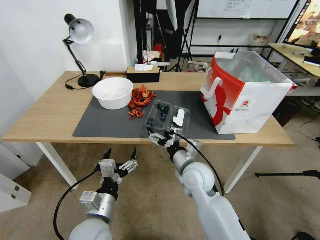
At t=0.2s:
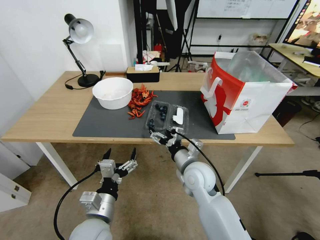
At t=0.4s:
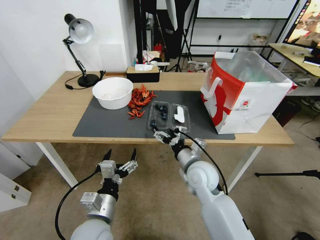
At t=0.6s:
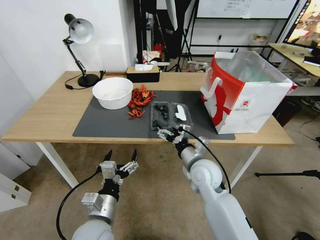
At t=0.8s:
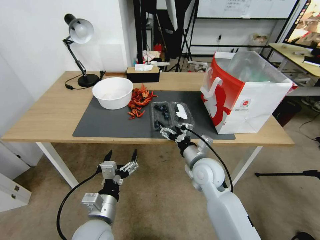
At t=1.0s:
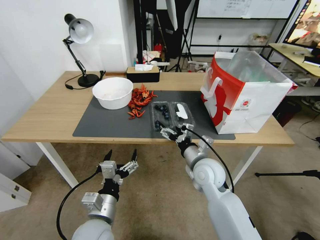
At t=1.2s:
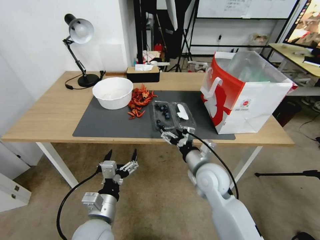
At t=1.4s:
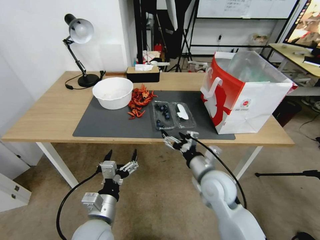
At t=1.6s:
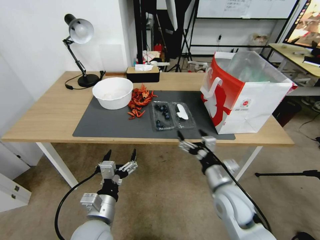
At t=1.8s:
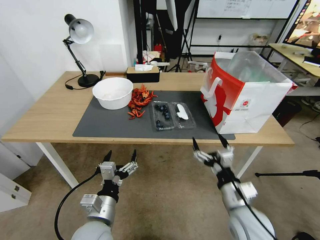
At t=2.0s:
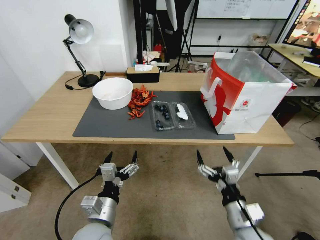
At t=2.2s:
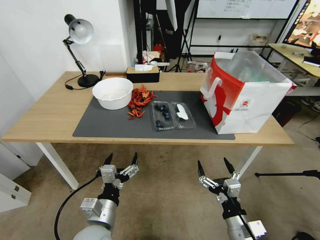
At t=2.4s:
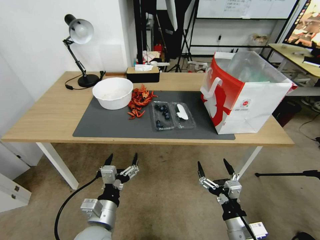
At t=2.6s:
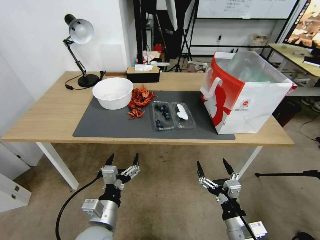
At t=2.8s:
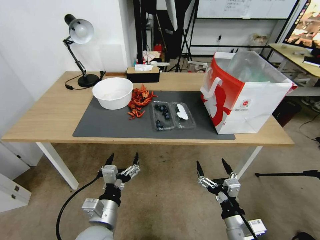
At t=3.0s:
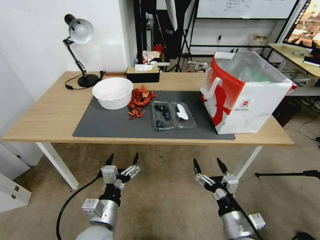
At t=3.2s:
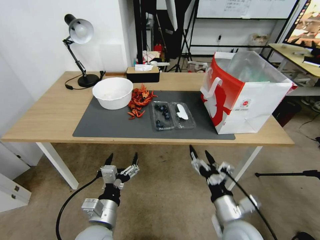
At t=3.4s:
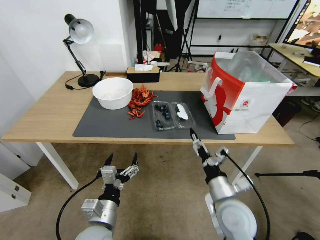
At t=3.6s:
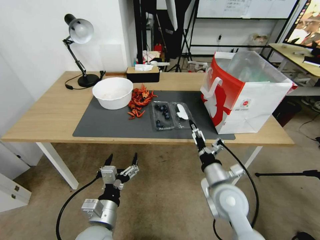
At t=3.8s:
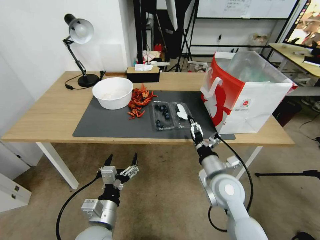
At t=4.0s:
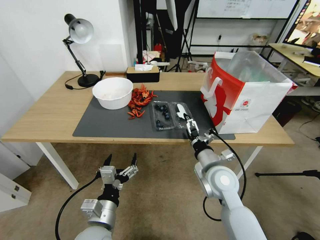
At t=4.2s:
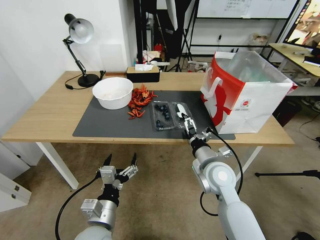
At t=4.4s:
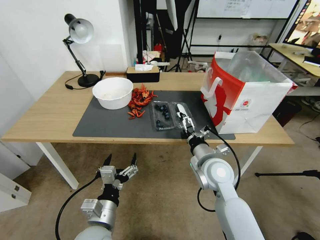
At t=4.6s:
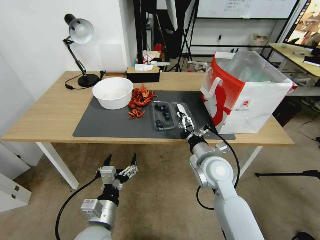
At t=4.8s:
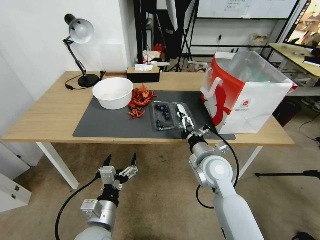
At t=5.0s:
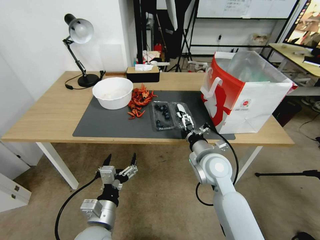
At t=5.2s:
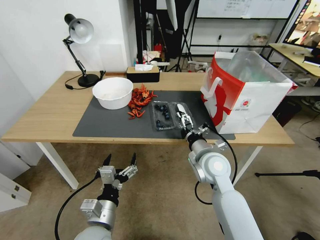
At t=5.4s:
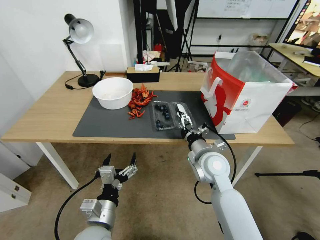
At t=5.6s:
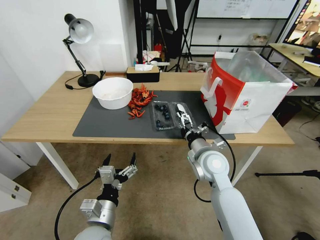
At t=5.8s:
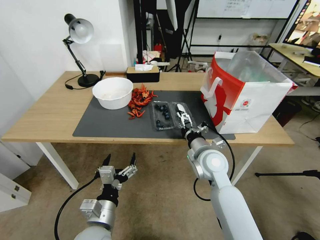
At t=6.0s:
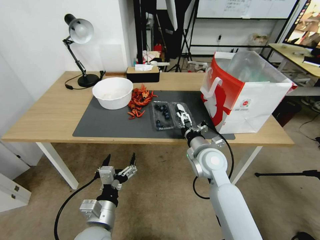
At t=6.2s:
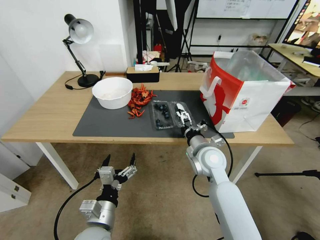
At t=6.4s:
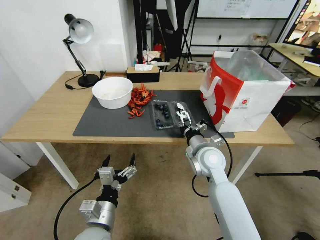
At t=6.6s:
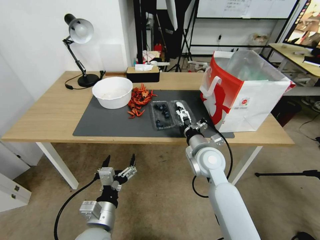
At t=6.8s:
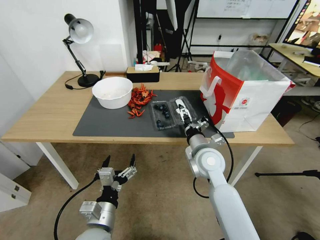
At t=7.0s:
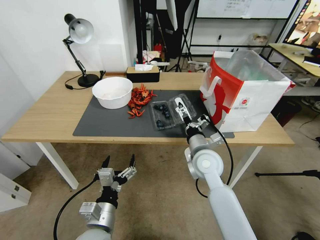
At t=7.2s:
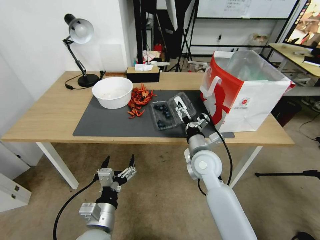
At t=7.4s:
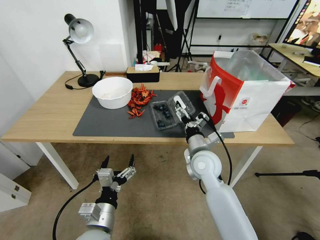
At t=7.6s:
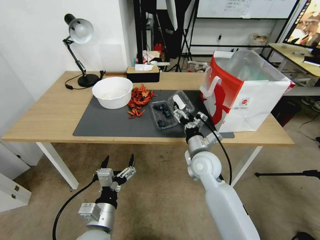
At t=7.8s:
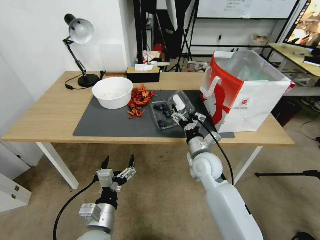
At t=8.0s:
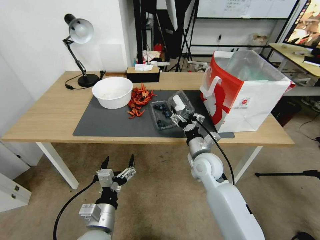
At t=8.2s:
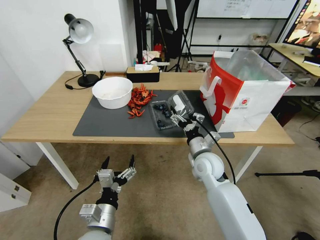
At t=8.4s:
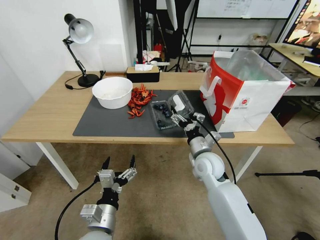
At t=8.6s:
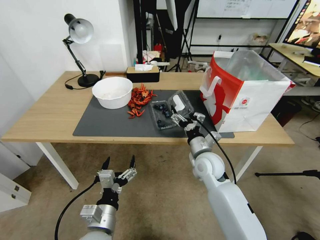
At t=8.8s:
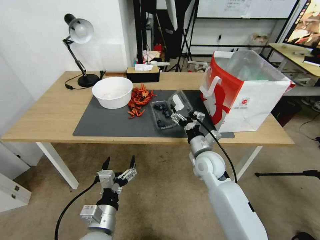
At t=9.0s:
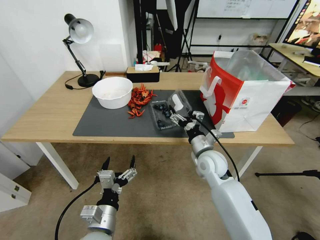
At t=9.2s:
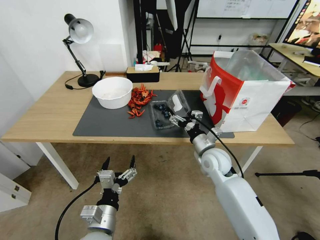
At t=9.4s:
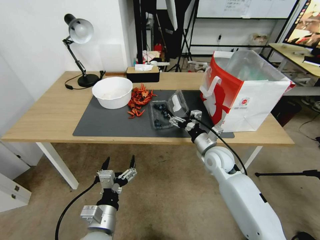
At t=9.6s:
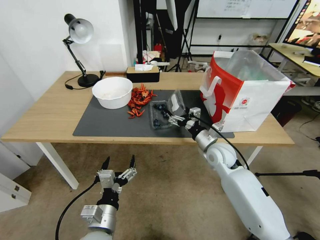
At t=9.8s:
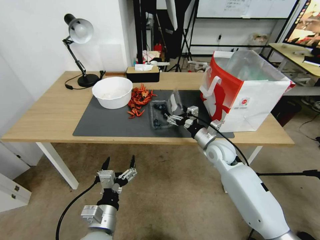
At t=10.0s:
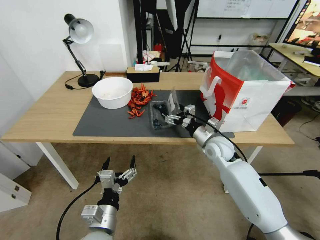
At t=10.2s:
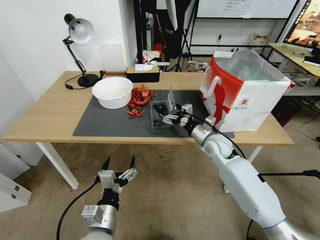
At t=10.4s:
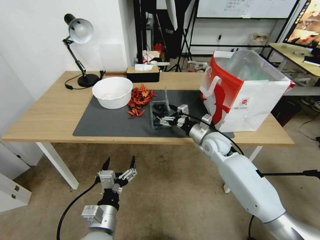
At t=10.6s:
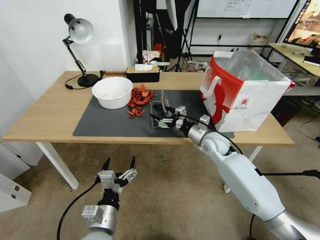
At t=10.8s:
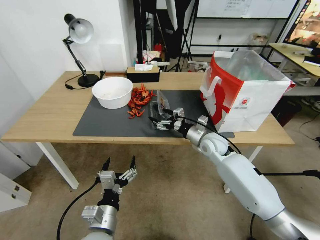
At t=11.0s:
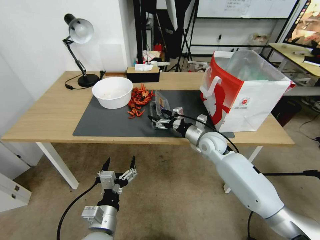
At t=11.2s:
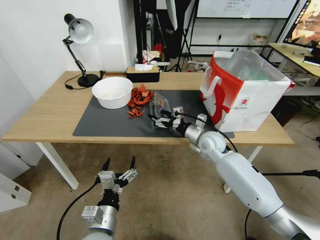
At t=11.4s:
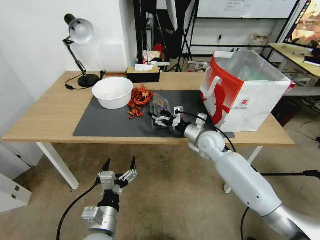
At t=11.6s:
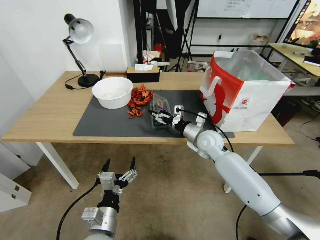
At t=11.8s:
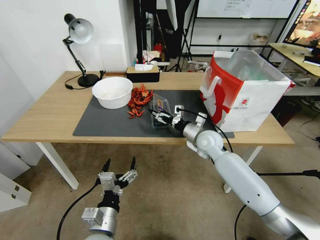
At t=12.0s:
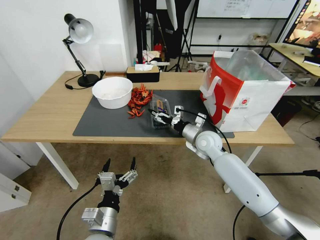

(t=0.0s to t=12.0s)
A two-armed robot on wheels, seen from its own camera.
Task of the whole recording: Close the takeout container lid, then place the container into the takeout bag.
t=0.0s - t=1.6s: The right gripper travels to the right and backward by approximately 10 cm.
t=1.6s - t=3.0s: The right gripper is displaced backward and downward by approximately 10 cm.
t=3.0s - t=4.4s: The right gripper moves forward and upward, approximately 20 cm.
t=4.4s - t=6.0s: There are only small adjustments of the grippers.
t=7.6s - t=9.0s: The grippers stay close to where they were, moving slightly.
t=9.0s - t=10.4s: The right gripper goes roughly 5 cm forward.

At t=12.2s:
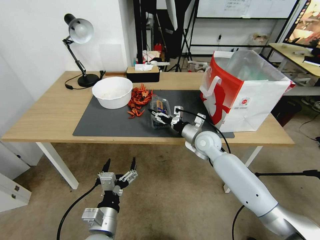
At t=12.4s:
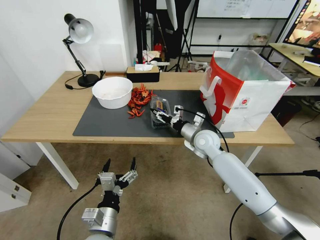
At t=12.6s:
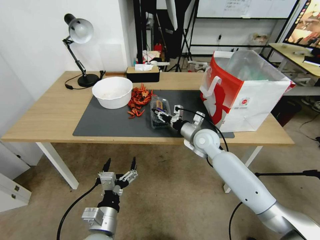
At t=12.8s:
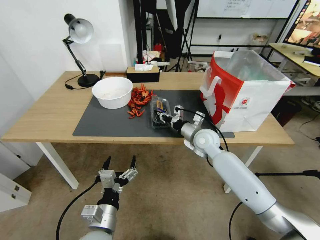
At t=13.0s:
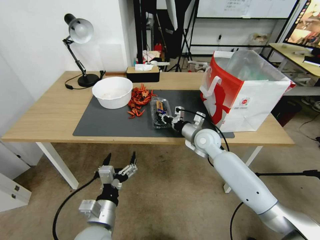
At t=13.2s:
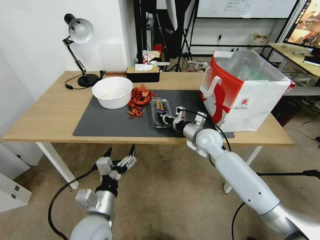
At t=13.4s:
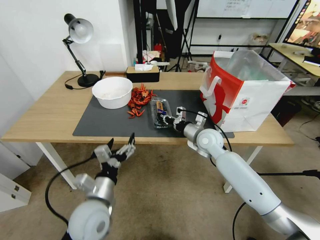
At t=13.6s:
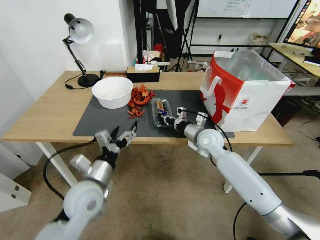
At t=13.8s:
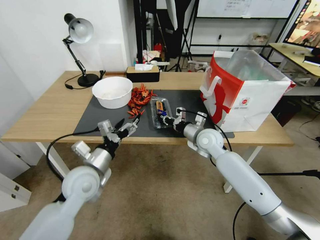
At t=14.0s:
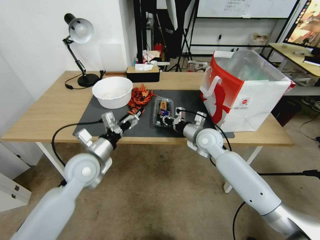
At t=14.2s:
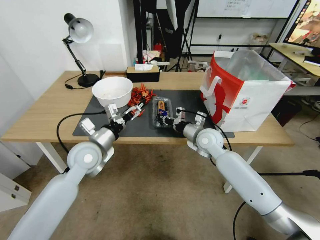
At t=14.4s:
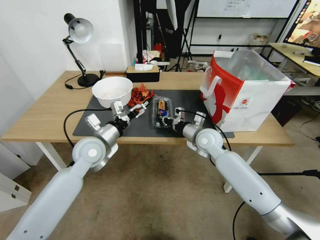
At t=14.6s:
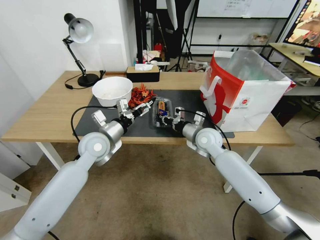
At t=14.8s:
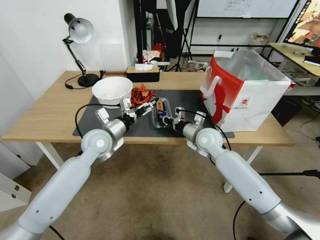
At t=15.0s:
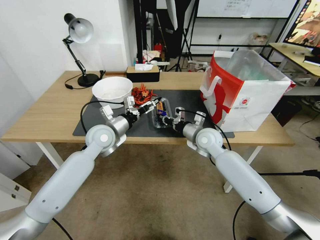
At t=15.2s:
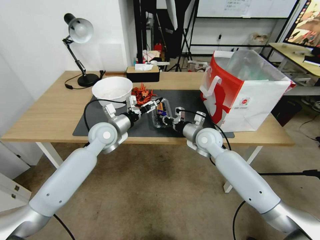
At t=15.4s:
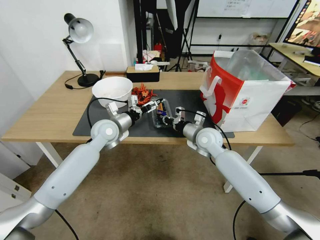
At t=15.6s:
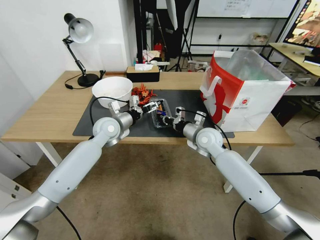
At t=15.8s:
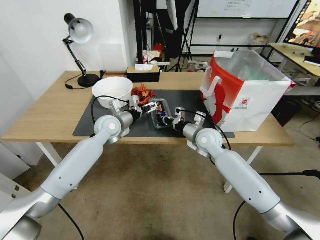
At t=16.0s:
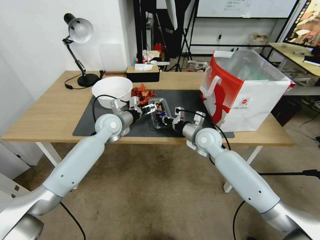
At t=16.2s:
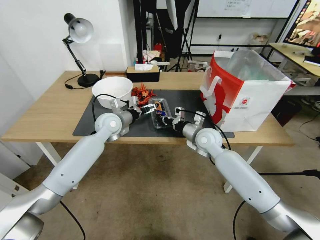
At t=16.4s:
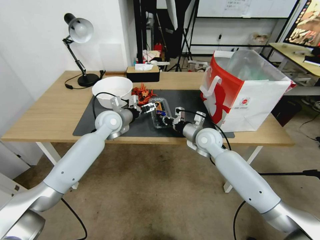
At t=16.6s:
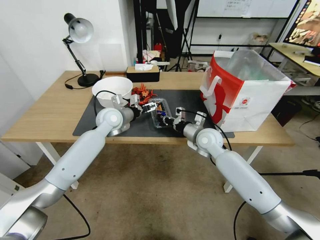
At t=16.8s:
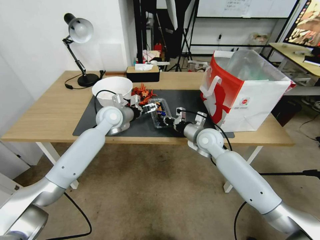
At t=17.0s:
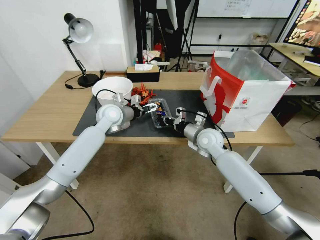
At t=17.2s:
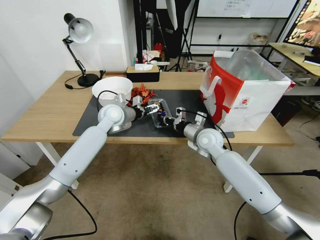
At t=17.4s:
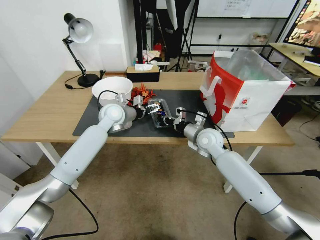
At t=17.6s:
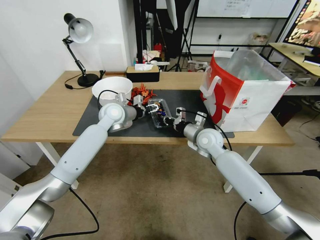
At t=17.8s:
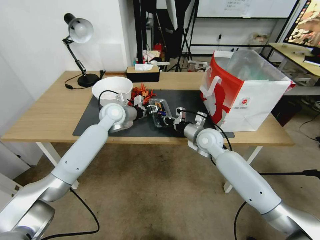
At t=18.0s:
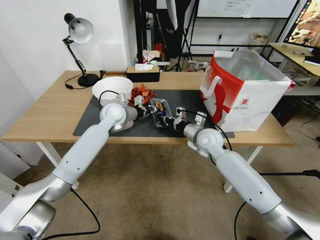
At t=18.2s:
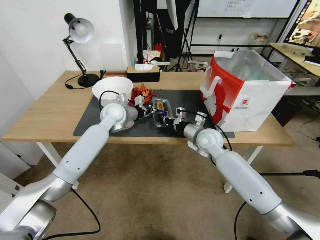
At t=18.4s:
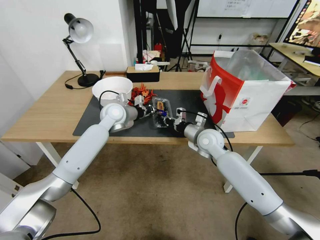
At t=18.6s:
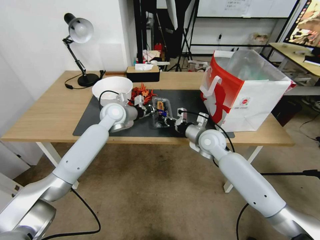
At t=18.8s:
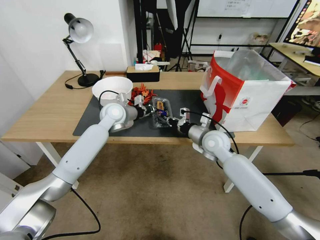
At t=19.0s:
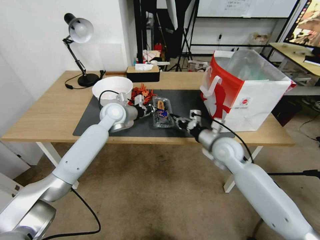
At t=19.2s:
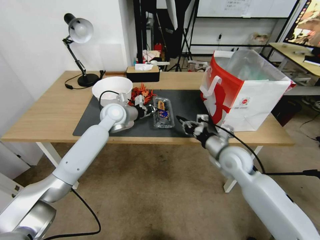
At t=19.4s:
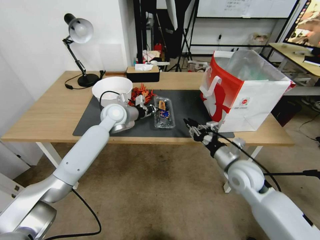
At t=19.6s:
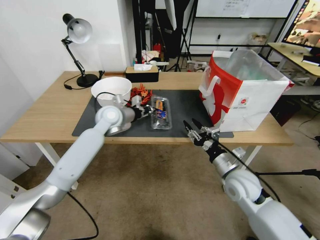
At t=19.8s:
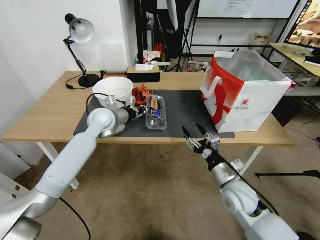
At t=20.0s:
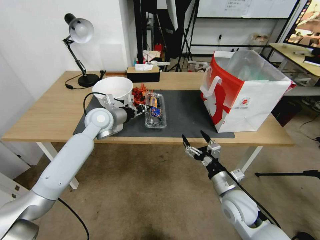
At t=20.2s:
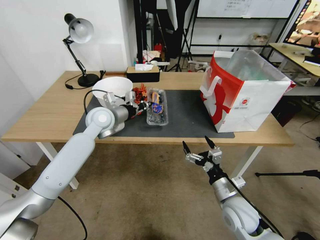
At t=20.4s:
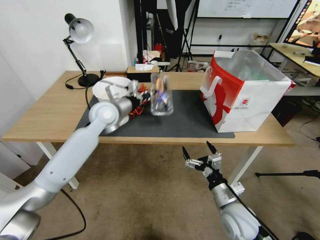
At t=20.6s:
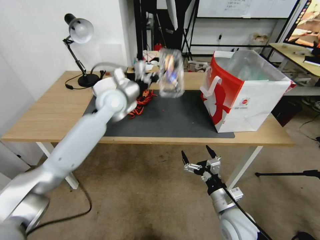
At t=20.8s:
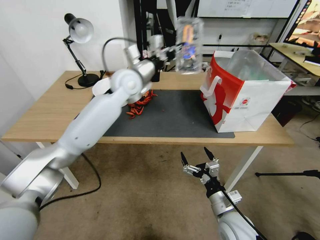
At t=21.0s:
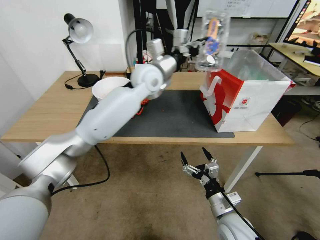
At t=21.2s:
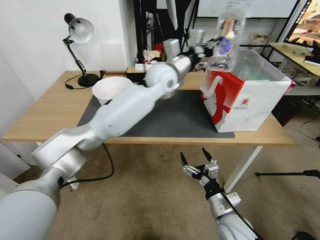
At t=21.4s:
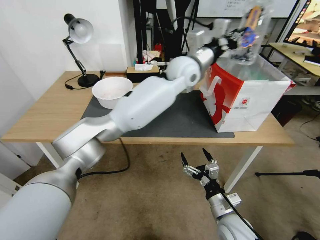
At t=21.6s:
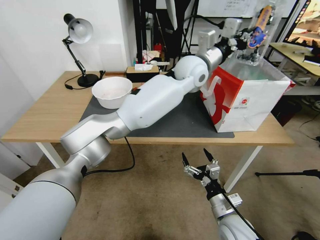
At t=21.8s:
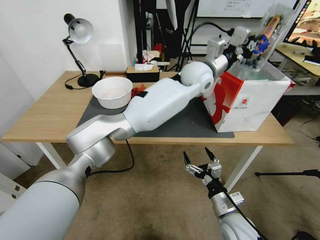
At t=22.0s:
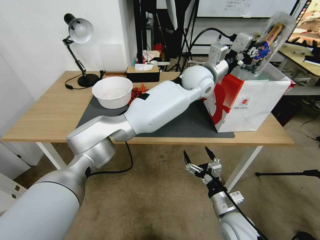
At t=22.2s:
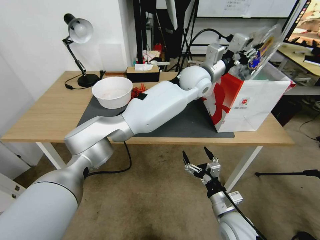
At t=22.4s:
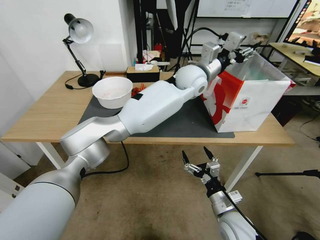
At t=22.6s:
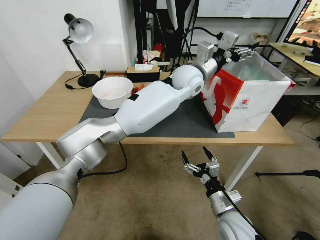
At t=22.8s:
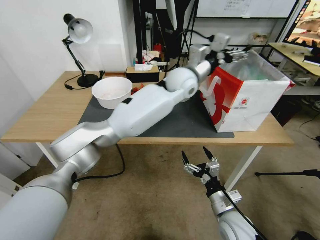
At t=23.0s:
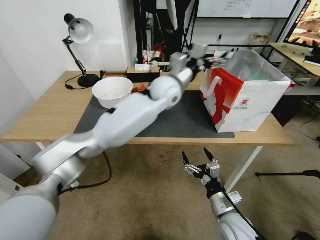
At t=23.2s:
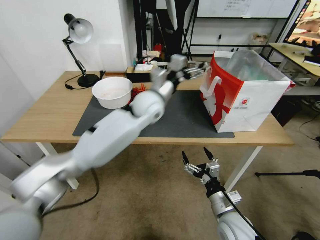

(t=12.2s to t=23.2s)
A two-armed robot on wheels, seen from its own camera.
Task of the whole recording: Close the takeout container lid, then place the container into the takeout bag.
t=12.2s - t=13.8s: The left gripper heads forward and upward, covering about 15 cm. Meanwhile the right gripper closes up.
t=13.8s - t=15.4s: The left gripper goes roughly 20 cm forward.
t=15.4s - t=17.0s: The left gripper is displaced forward by about 5 cm.
t=17.0s - t=18.4s: The left gripper closes its fingers.
t=18.4s - t=20.0s: The left gripper changes place by some 5 cm; the right gripper travels backward by some 20 cm, and opens up.
t=20.0s - t=21.6s: The right gripper heads backward, covering some 5 cm, while the left gripper heads to the right and upward, covering roughly 35 cm.
t=21.6s - t=23.2s: The left gripper moves to the left, downward and backward, approximately 20 cm, and opens.
